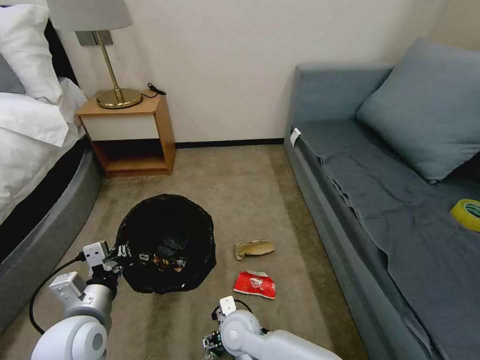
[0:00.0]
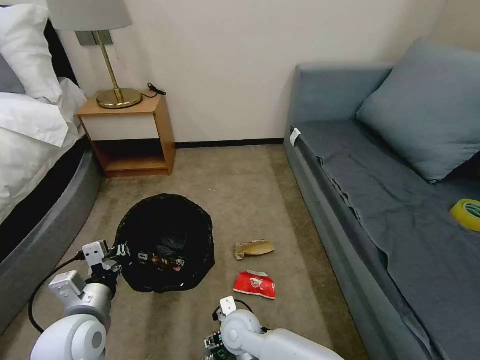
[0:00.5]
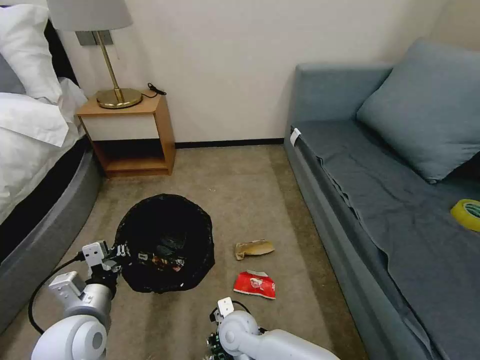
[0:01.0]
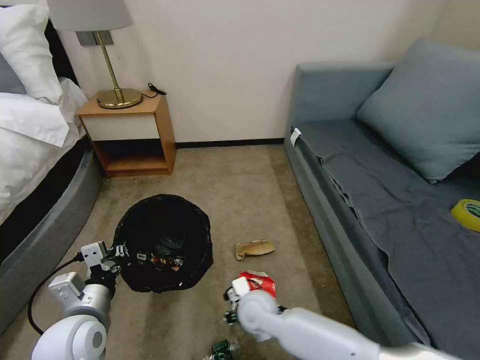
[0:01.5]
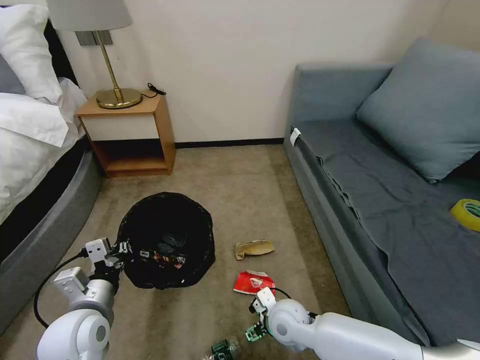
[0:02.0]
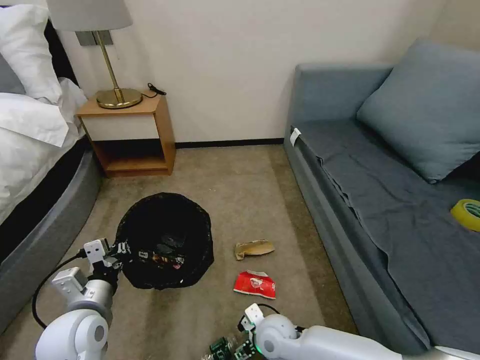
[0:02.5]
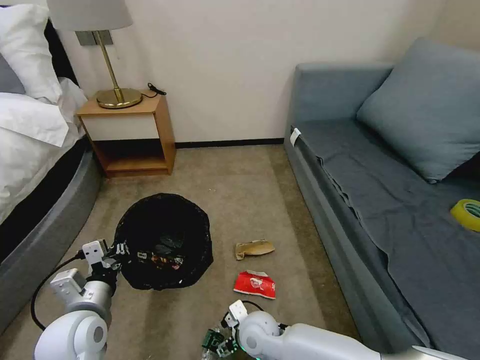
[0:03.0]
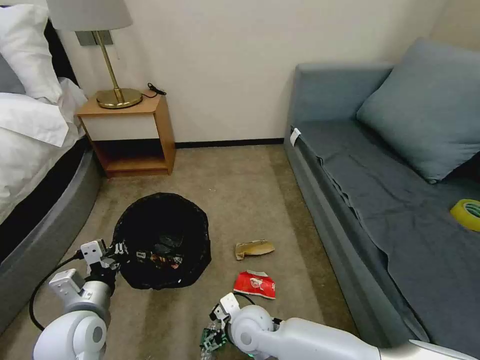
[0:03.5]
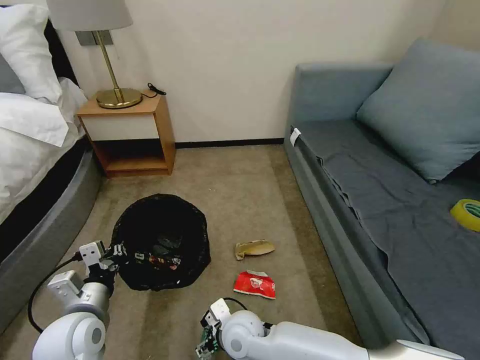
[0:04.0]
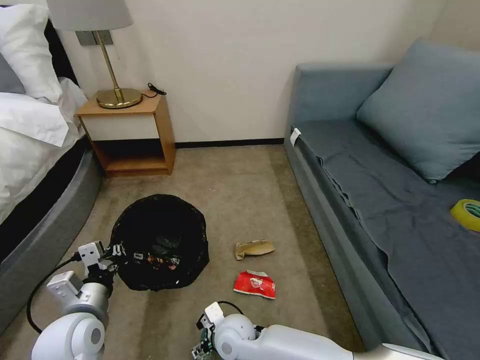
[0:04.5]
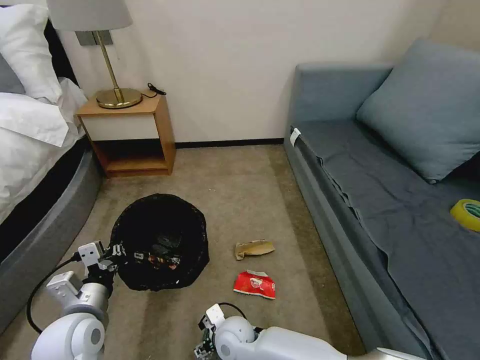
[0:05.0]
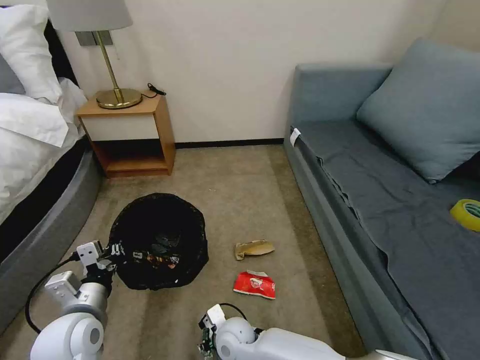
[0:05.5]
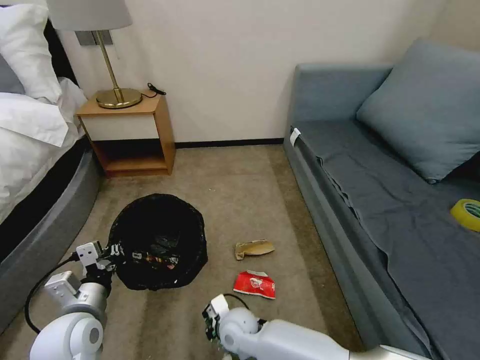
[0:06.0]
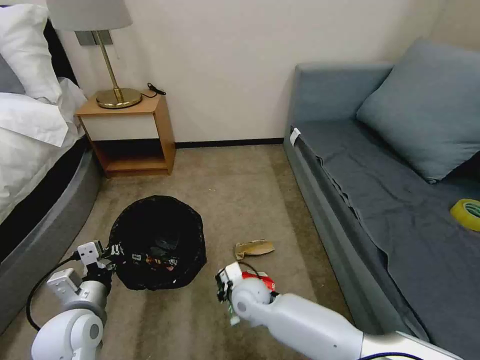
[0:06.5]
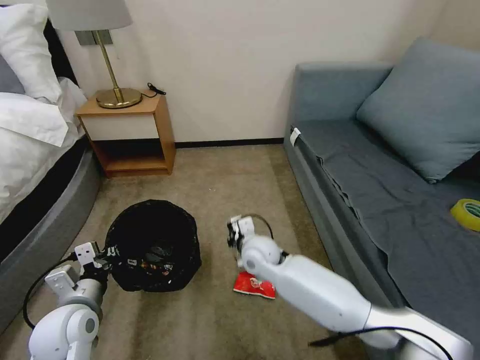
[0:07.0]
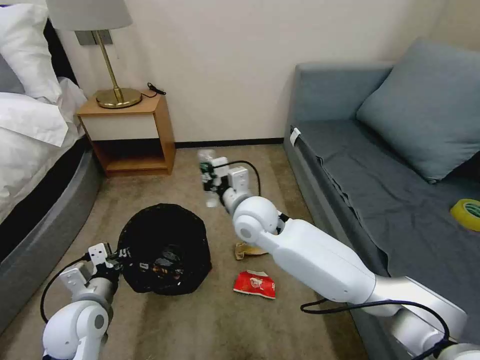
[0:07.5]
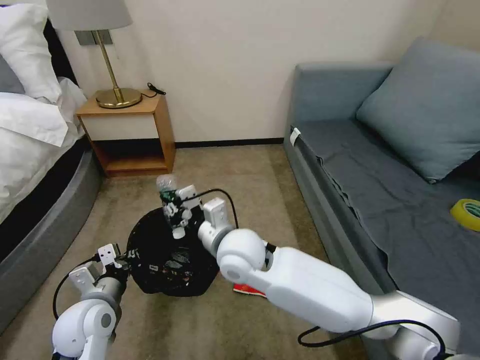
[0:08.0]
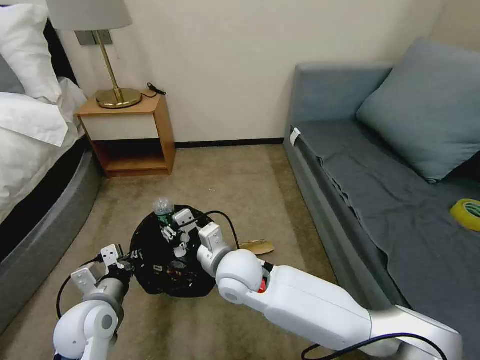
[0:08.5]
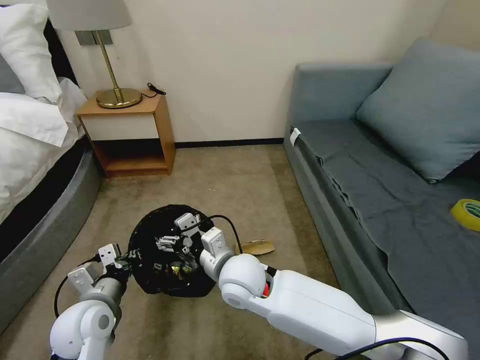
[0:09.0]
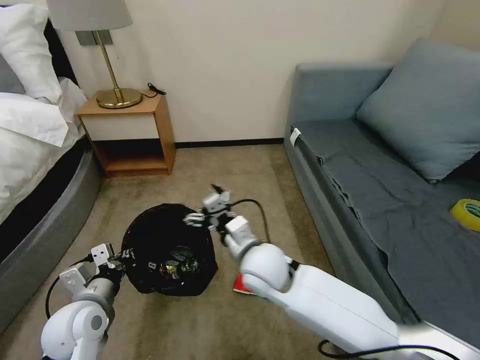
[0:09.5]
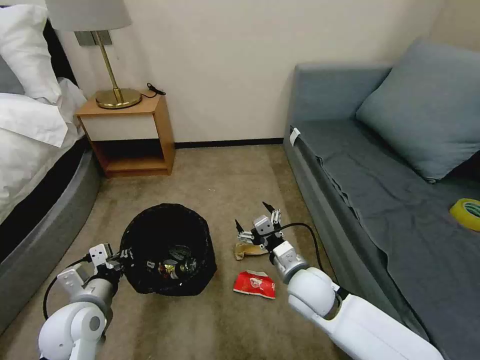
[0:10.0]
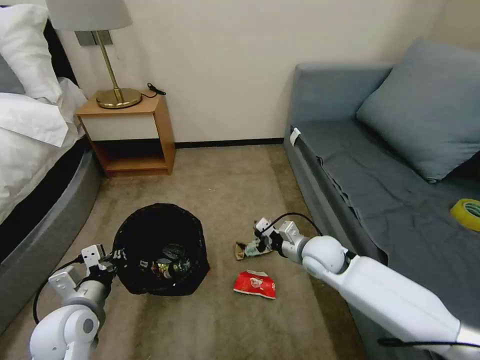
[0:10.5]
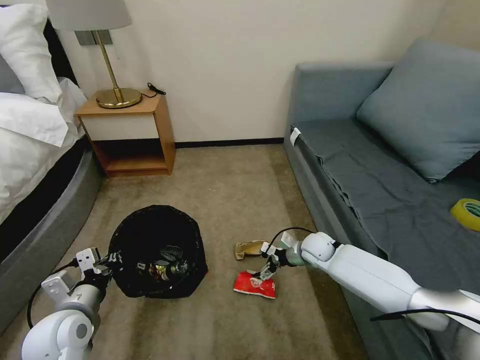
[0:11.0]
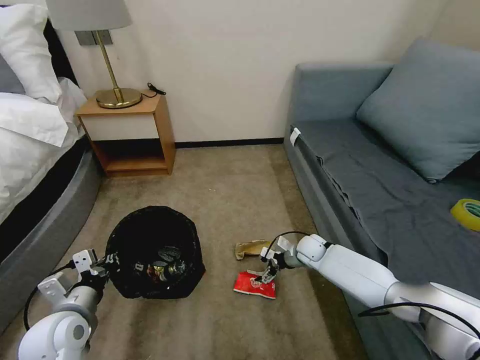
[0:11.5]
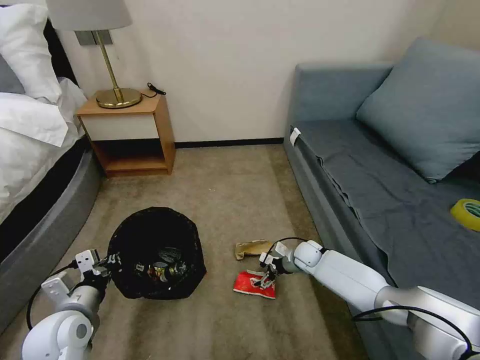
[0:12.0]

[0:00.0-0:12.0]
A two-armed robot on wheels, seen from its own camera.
Task of the whole recording: Pick up the trash bin, then pick up the garbage on the floor and place it into the trash bin.
0:00.0 to 0:02.0: The right gripper moves to the right, about 10 cm, and closes, then reopens.
0:02.0 to 0:04.0: The right gripper heads to the left, covering some 10 cm.
0:04.0 to 0:06.0: The right gripper shifts approximately 5 cm downward, and closes up.
0:06.0 to 0:08.0: The right gripper goes roughly 25 cm upward.
0:08.0 to 0:10.0: The right gripper shifts about 20 cm to the right and downward, and opens up.
0:10.0 to 0:12.0: The right gripper heads forward, downward and to the right, covering approximately 25 cm.

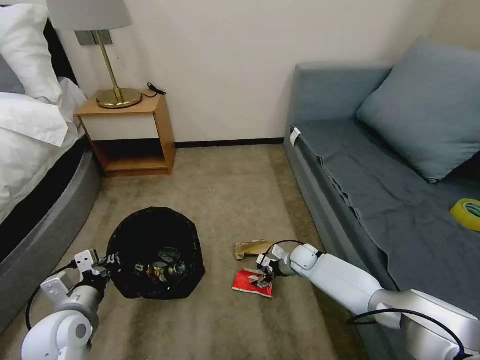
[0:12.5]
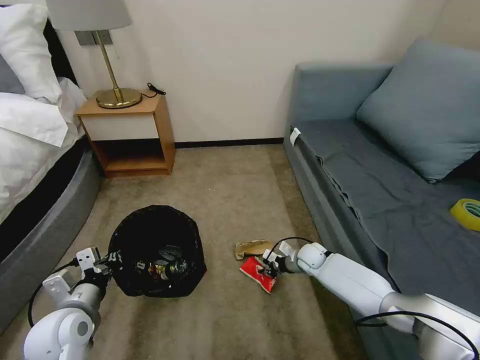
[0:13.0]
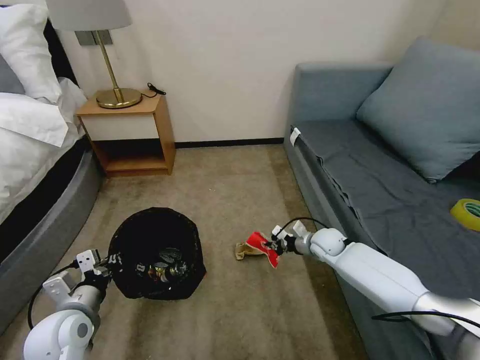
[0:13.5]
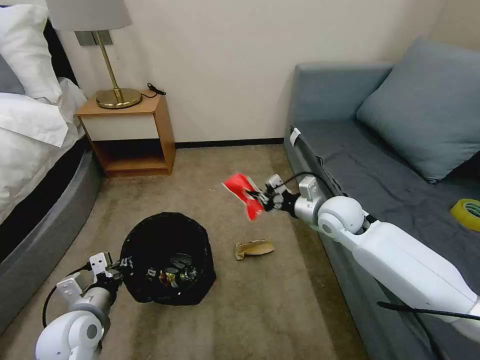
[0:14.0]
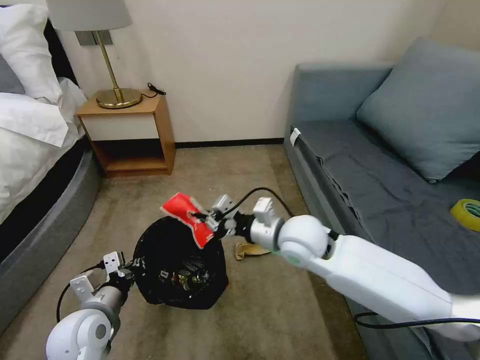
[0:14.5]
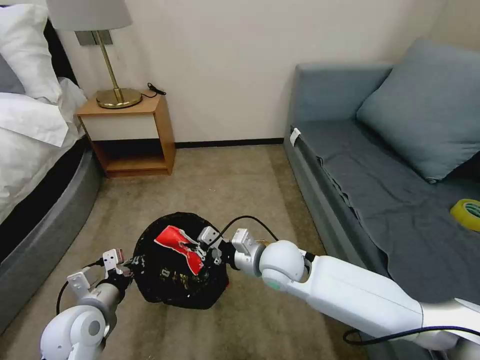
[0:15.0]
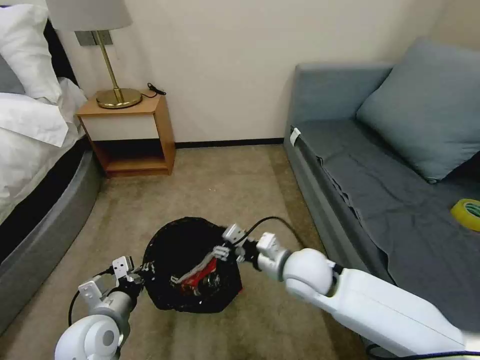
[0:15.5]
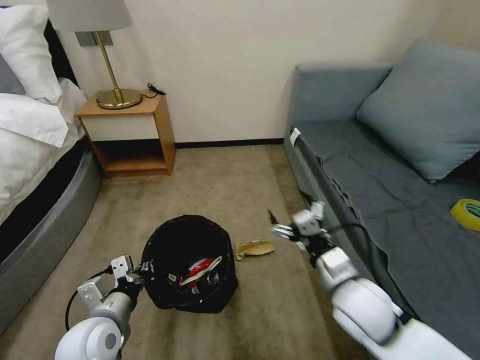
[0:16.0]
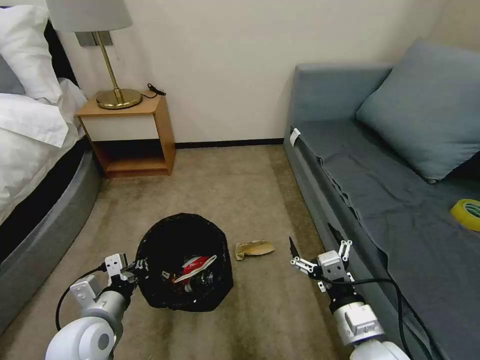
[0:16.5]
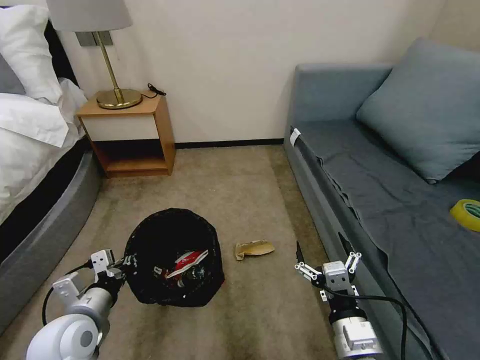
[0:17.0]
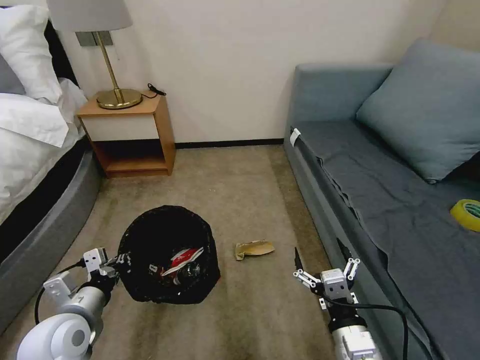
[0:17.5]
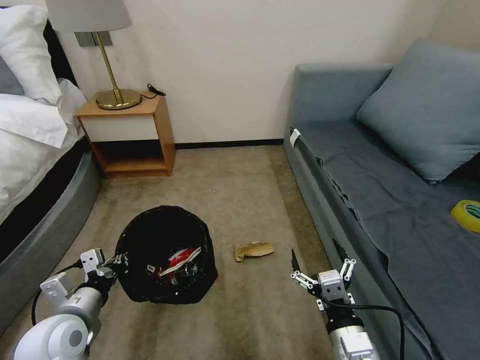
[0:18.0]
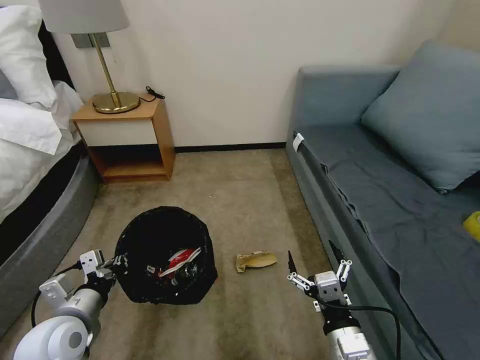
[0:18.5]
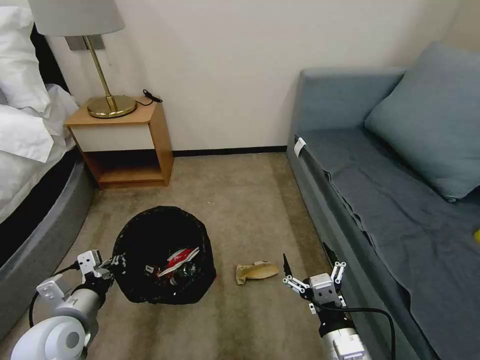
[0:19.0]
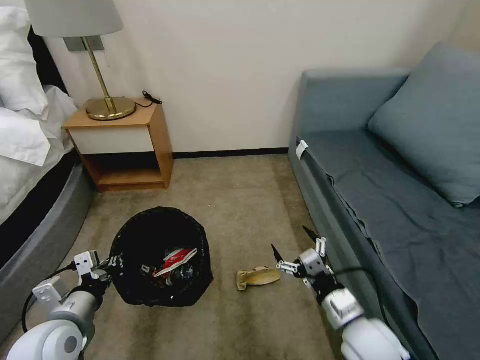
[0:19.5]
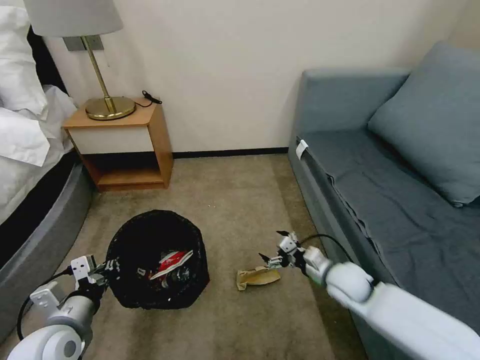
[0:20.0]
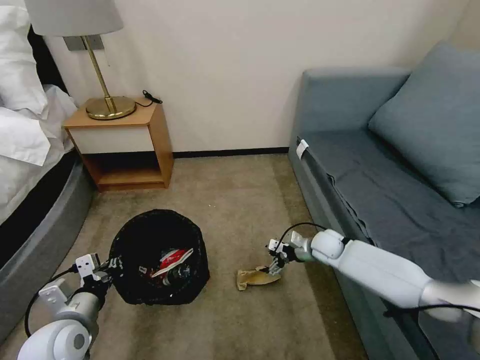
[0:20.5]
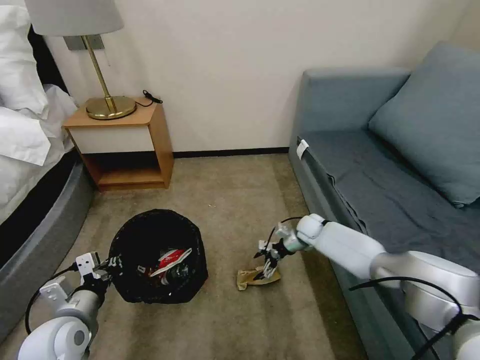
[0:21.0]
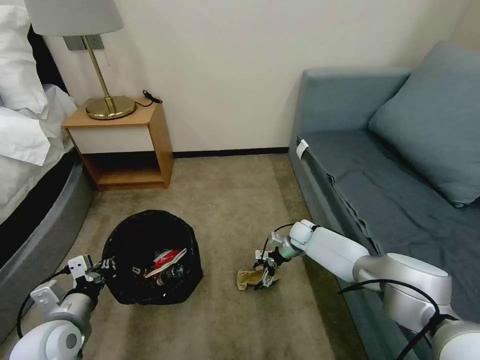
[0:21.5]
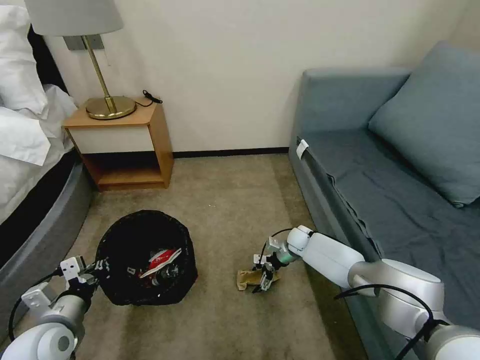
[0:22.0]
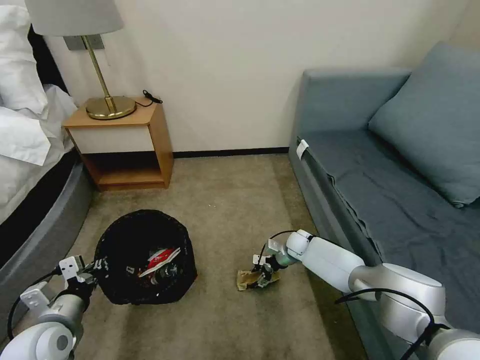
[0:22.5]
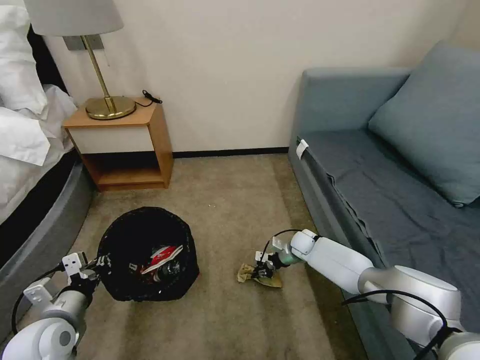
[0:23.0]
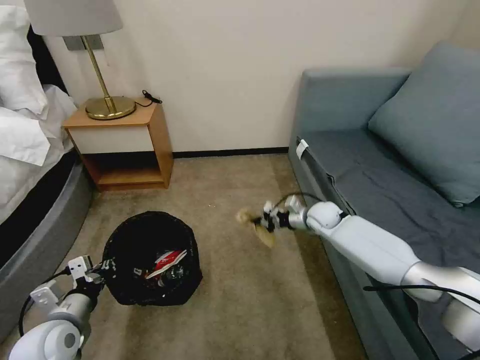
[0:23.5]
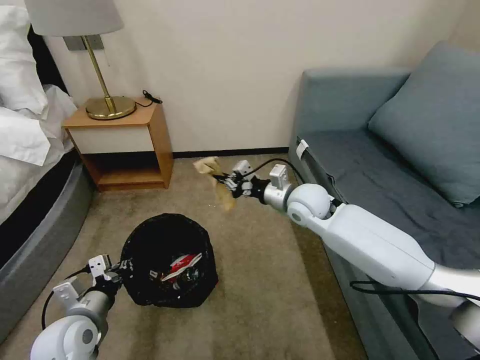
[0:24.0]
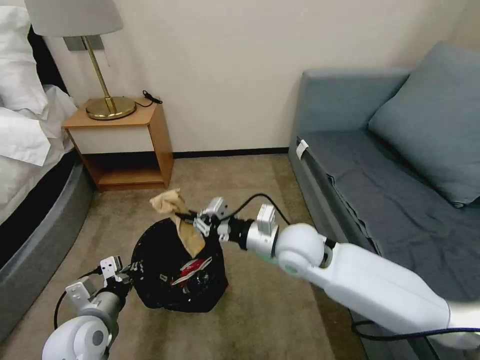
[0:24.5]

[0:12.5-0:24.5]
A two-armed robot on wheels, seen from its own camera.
Task of the whole recording: Pick up the trash bin, then pick up the garbage on the floor and place it into the trash bin.
0:12.5 to 0:14.5: The right gripper is displaced upward by roughly 30 cm, and closes its fingers.
0:14.5 to 0:16.5: The right gripper goes some 25 cm backward and to the right, and opens.
0:16.5 to 0:18.5: The right gripper ends up some 5 cm from where it was.
0:18.5 to 0:20.5: The right gripper goes some 35 cm forward.
0:20.5 to 0:22.5: The right gripper travels downward, forward and to the left by roughly 10 cm.
0:22.5 to 0:24.5: The right gripper is displaced upward and backward by approximately 30 cm, and closes. The left gripper shifts roughly 5 cm to the right.

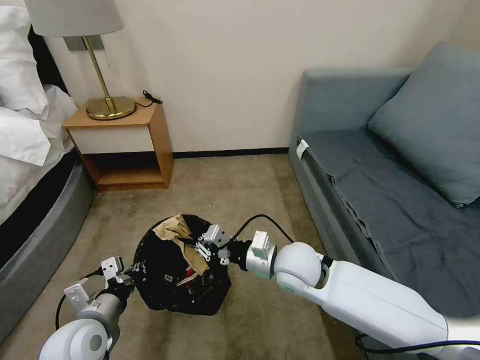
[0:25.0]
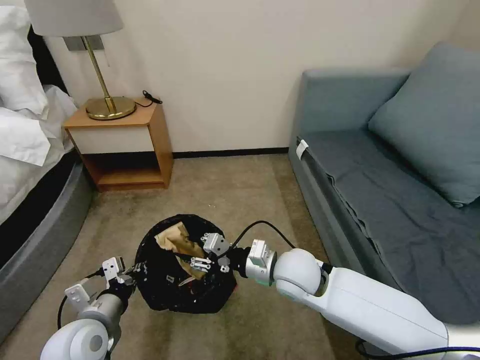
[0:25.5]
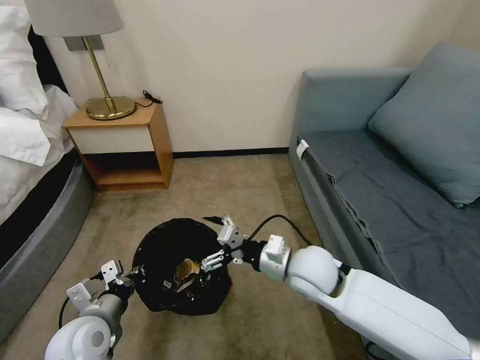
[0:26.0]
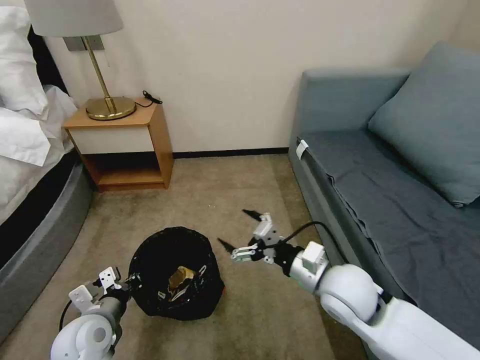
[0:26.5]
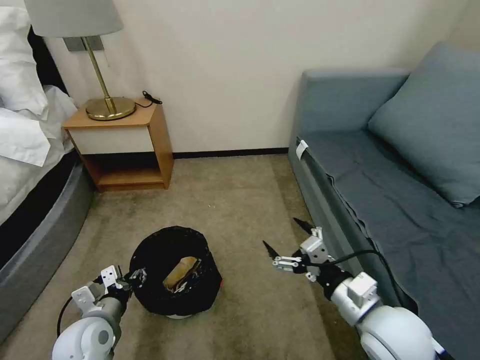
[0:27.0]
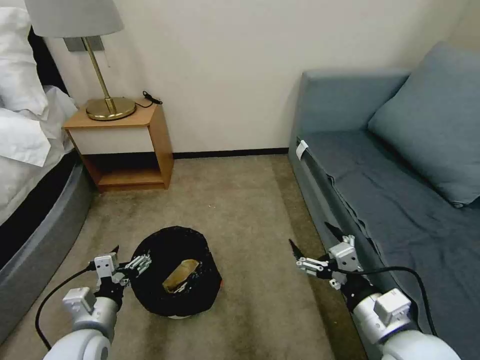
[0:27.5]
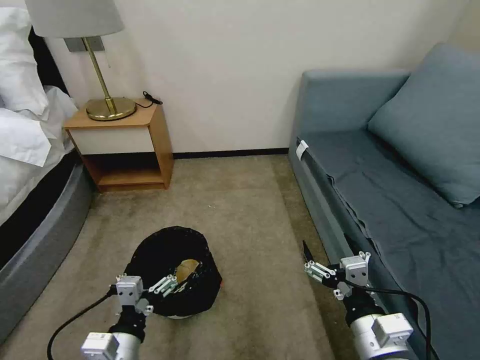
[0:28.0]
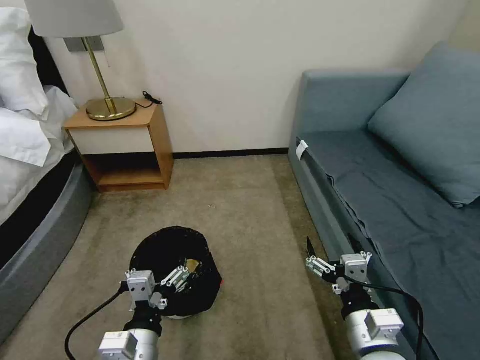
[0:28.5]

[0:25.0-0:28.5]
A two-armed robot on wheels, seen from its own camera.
Task of the whole recording: Pick up the trash bin, then pick up the garbage on the floor and place it into the trash bin.
0:25.0 to 0:27.0: The left gripper opens up. The right gripper moves backward and to the right, about 20 cm, and opens.
0:27.0 to 0:28.5: The left gripper goes about 15 cm to the right and backward, and opens up, while the right gripper moves backward, some 5 cm.
